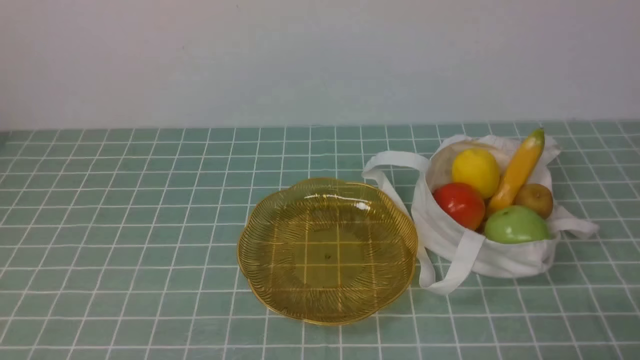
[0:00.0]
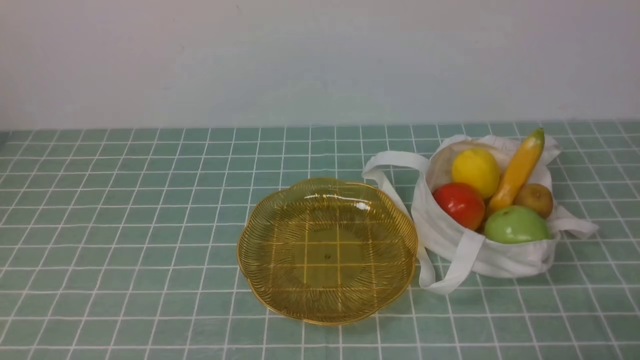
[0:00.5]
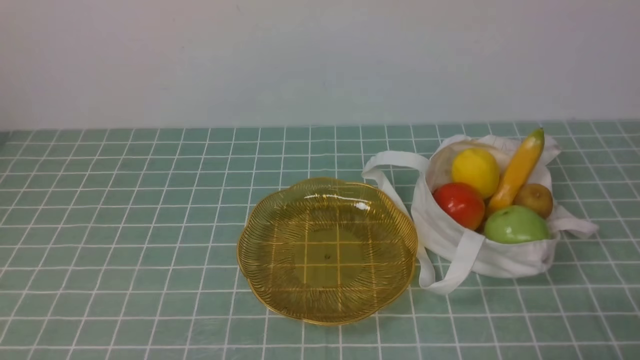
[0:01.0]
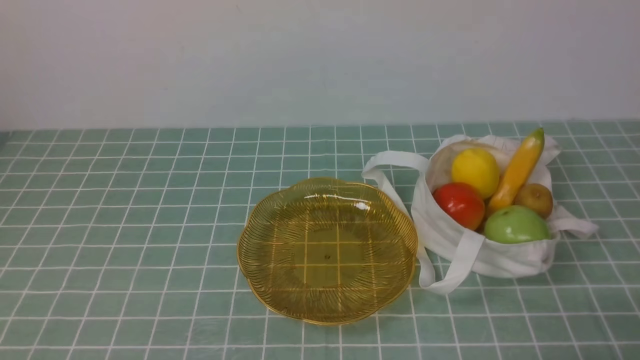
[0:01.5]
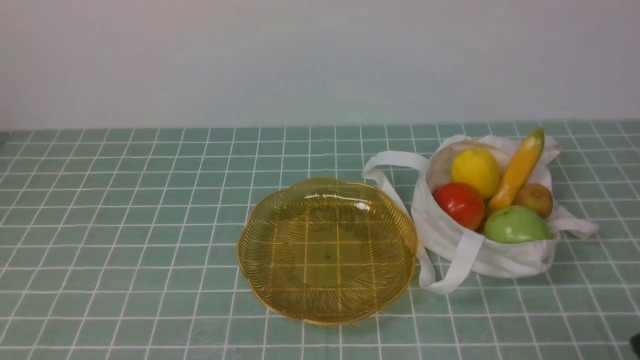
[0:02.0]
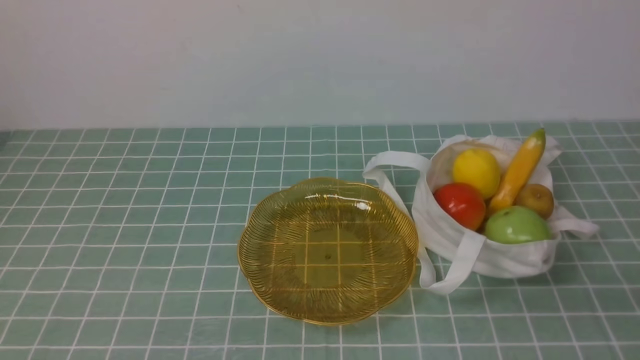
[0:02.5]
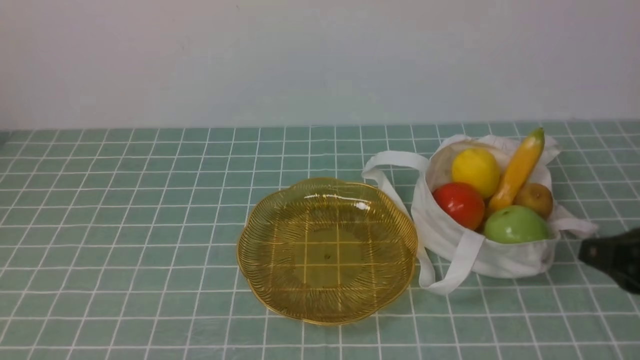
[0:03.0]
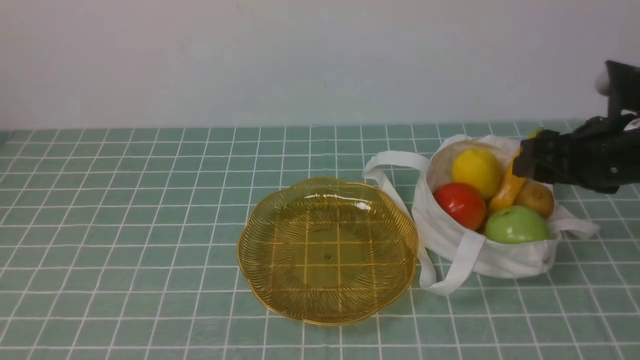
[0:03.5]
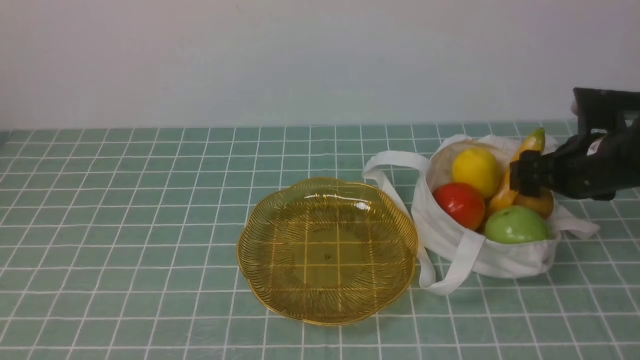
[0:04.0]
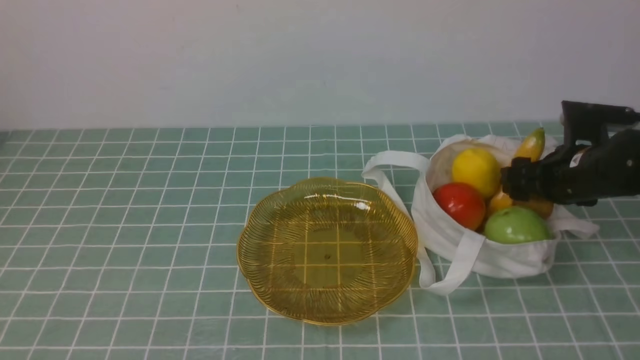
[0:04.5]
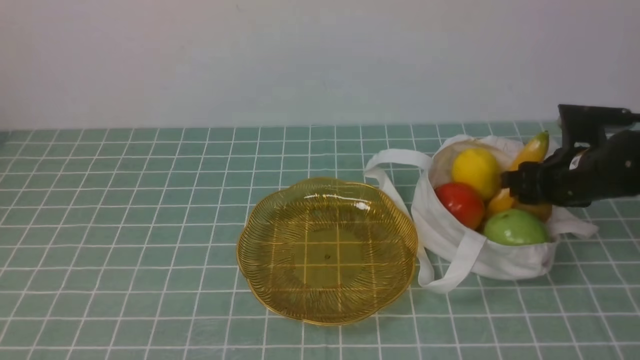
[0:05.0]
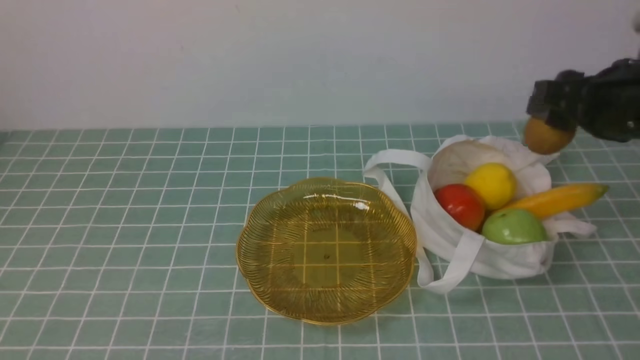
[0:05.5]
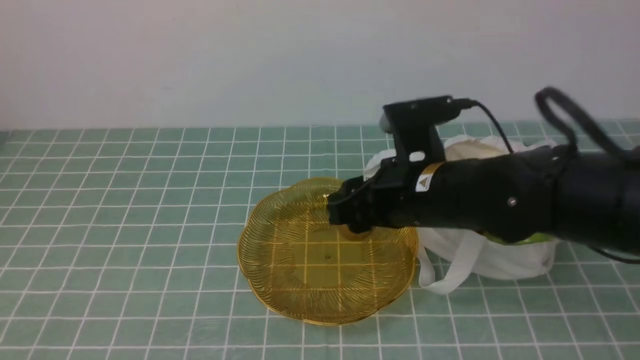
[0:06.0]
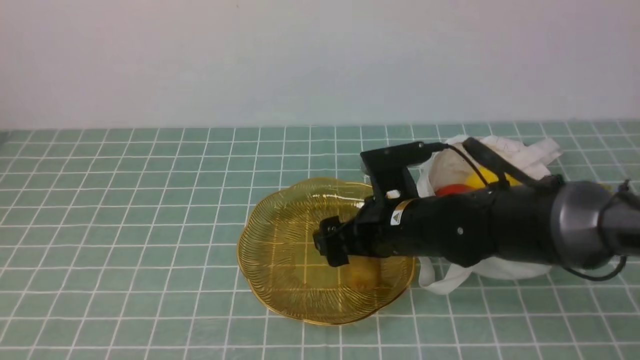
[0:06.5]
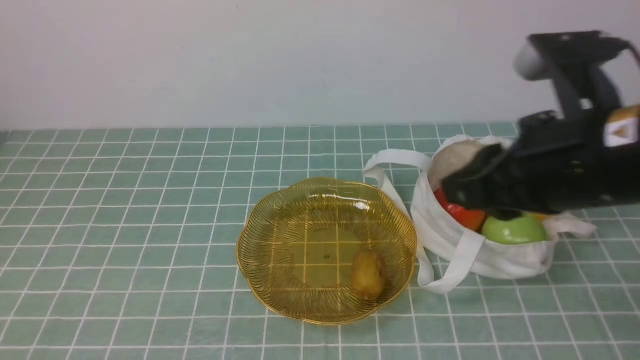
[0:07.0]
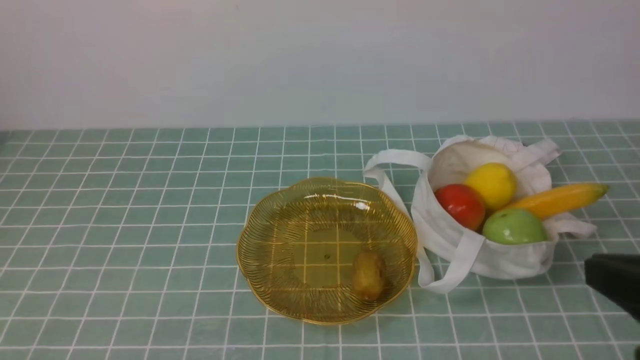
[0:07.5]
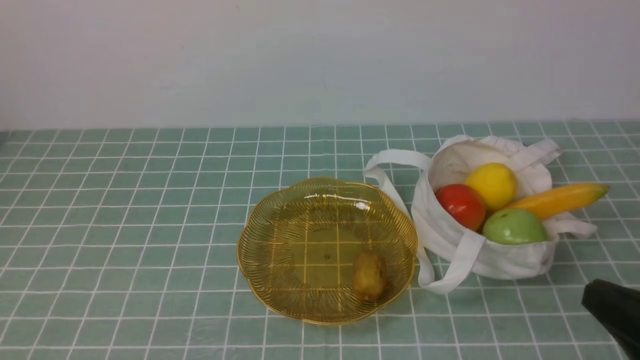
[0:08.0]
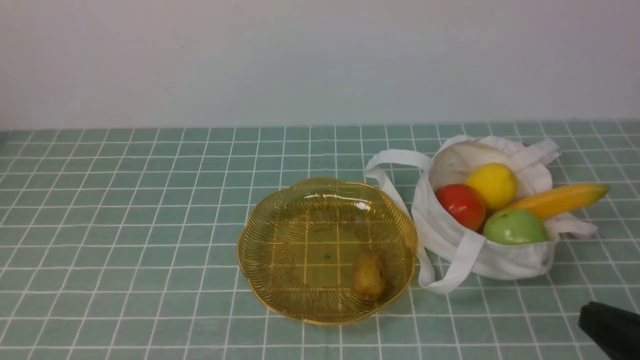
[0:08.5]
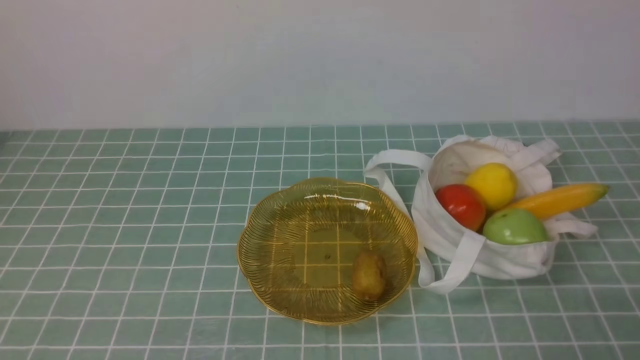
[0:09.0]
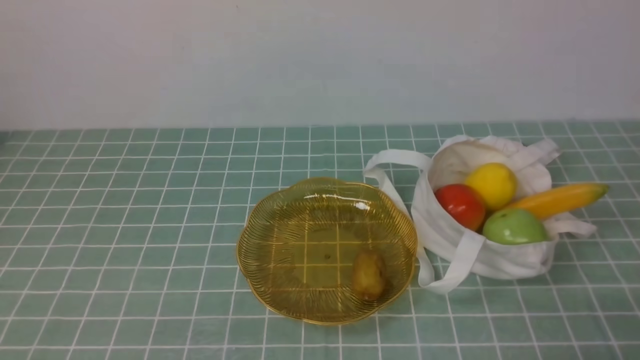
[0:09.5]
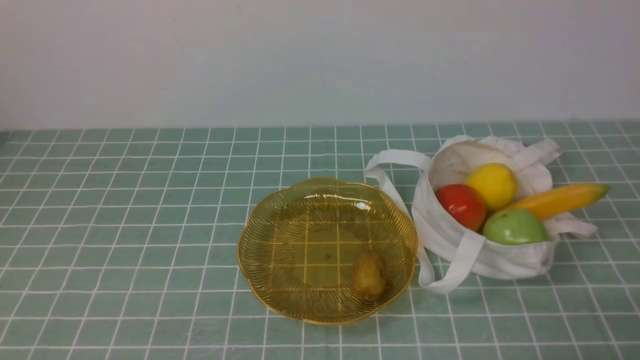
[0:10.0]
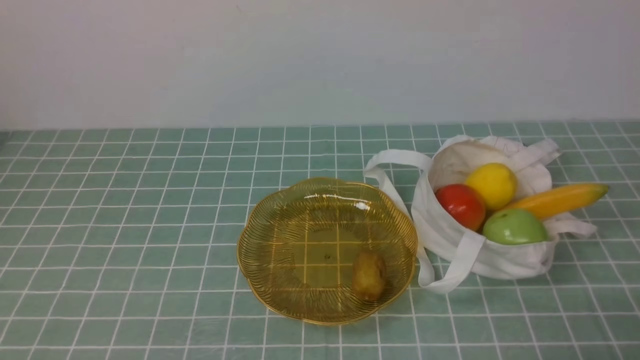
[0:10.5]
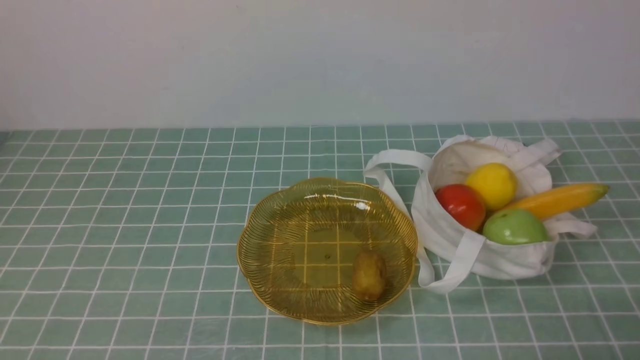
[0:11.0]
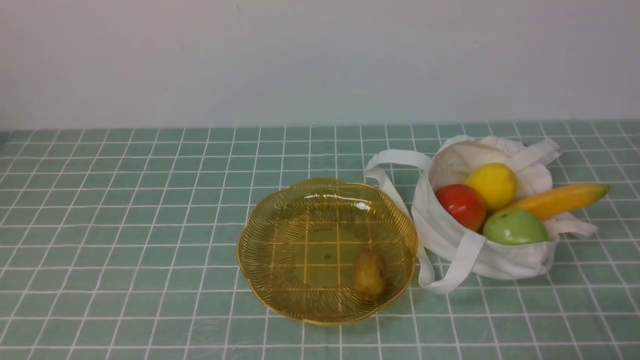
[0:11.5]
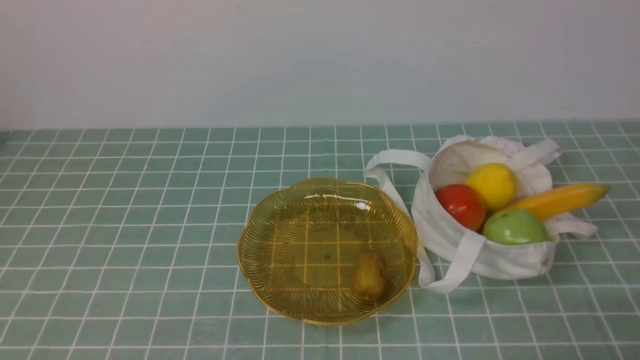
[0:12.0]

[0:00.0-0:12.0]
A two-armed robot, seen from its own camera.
Step, 0:00.0 to 0:05.0: use the right arm to grab a kiwi from the bag.
Step, 0:05.5 to 0:06.5: use the right arm to put the kiwi into the empty plate on the left.
0:02.0 to 0:04.0: The right gripper travels forward by roughly 30 cm, and opens.
0:04.0 to 0:06.0: The right gripper shifts approximately 20 cm to the left.
0:06.0 to 0:08.0: The right gripper travels backward and to the right by roughly 25 cm, and closes up.
0:08.0 to 0:10.0: The right gripper goes some 10 cm downward.
0:10.0 to 0:12.0: Both grippers stay about where they are.

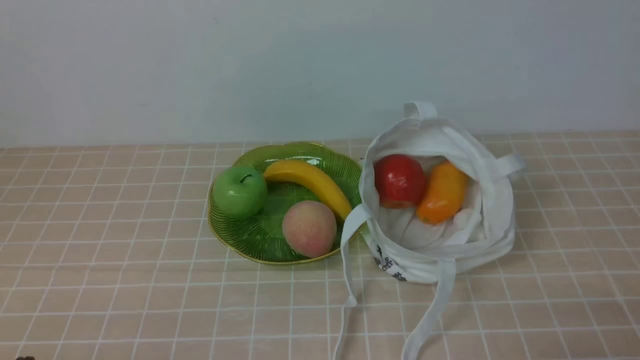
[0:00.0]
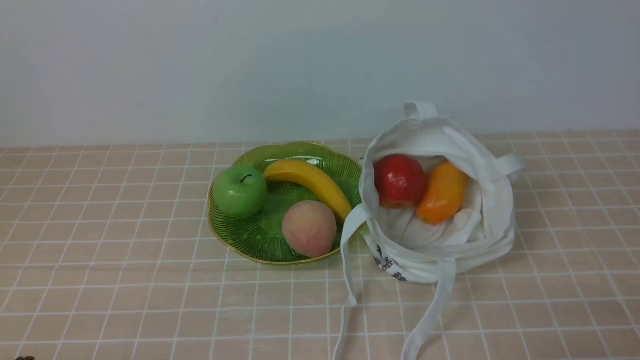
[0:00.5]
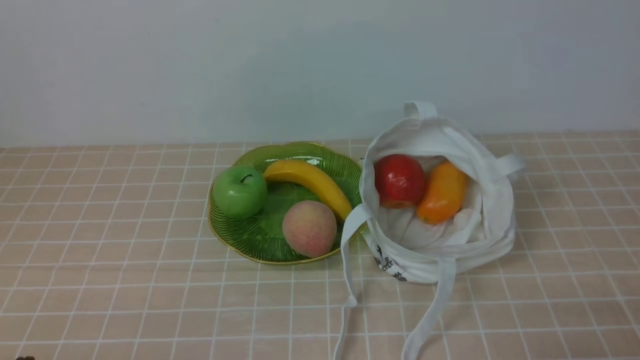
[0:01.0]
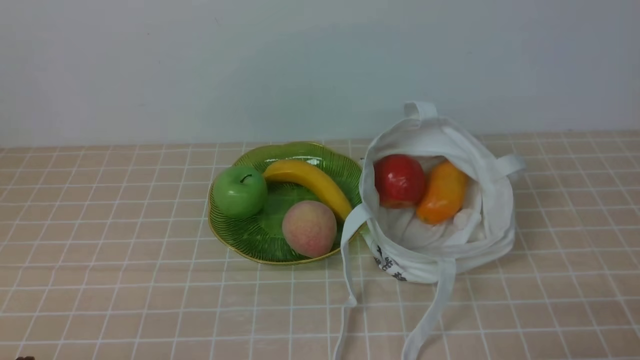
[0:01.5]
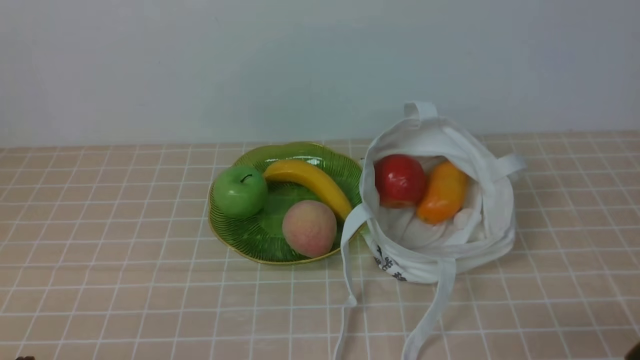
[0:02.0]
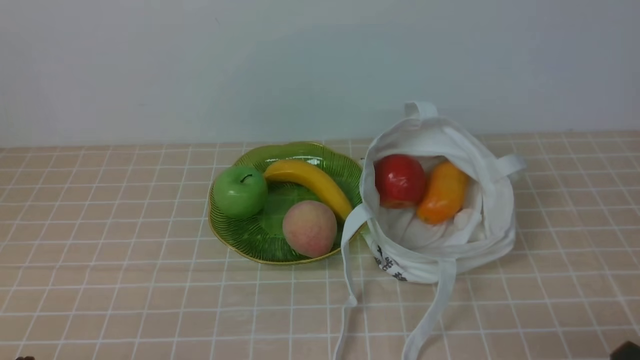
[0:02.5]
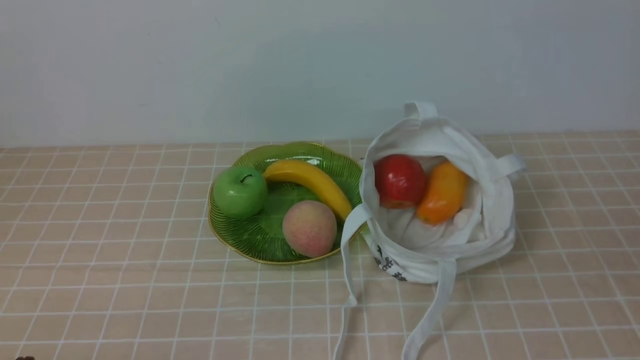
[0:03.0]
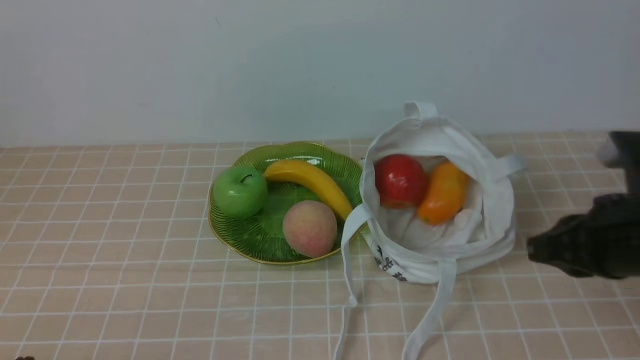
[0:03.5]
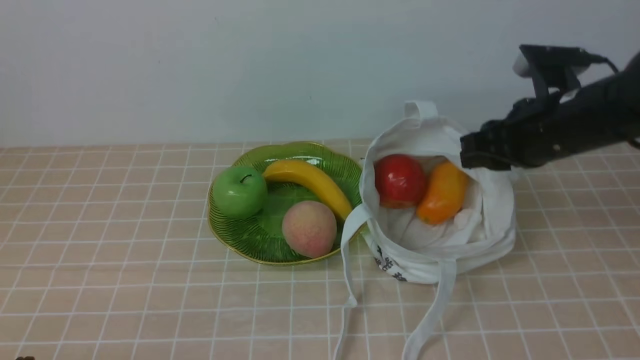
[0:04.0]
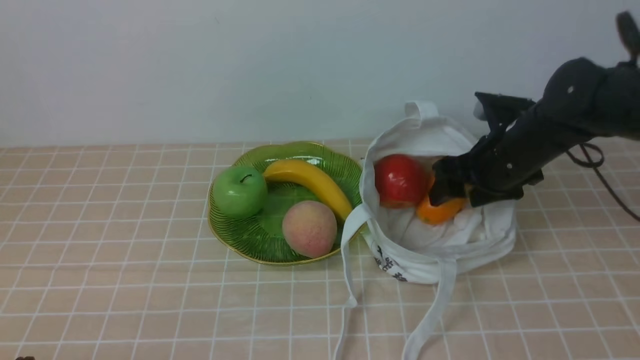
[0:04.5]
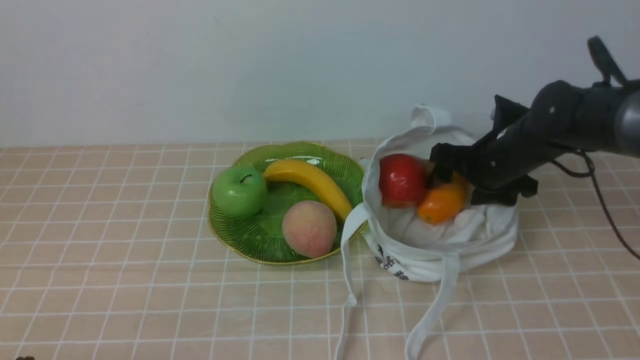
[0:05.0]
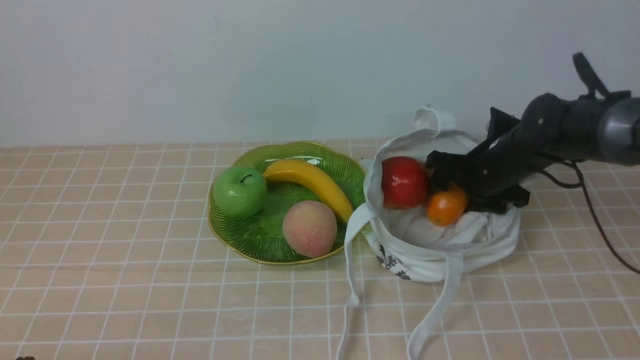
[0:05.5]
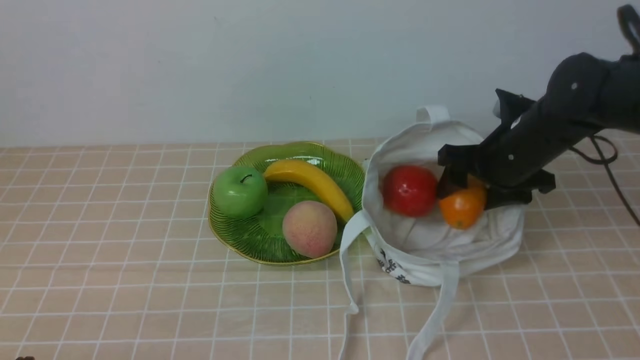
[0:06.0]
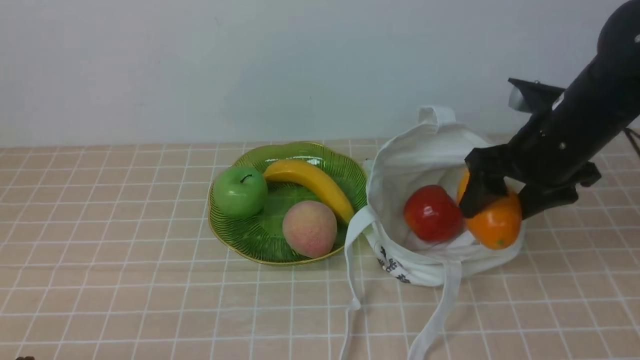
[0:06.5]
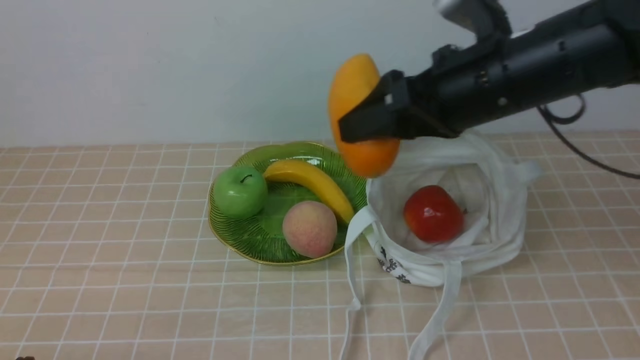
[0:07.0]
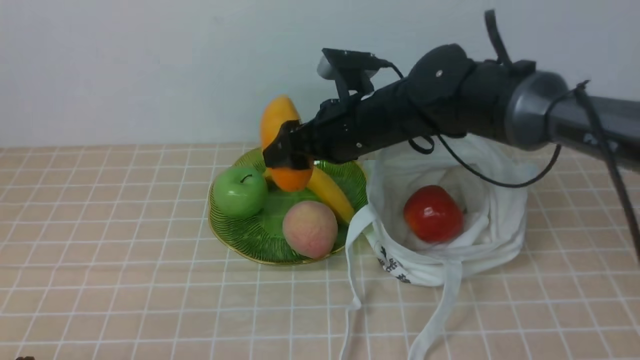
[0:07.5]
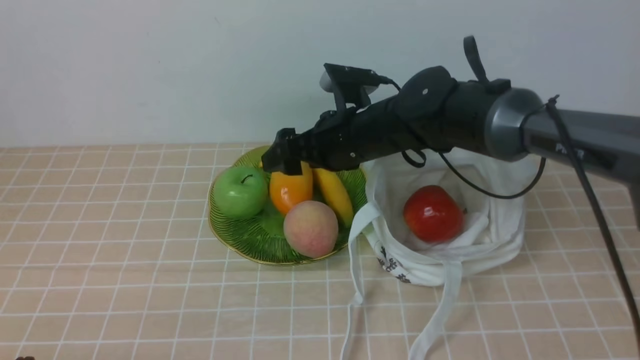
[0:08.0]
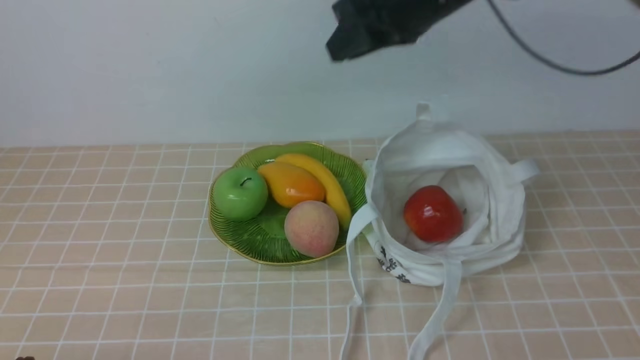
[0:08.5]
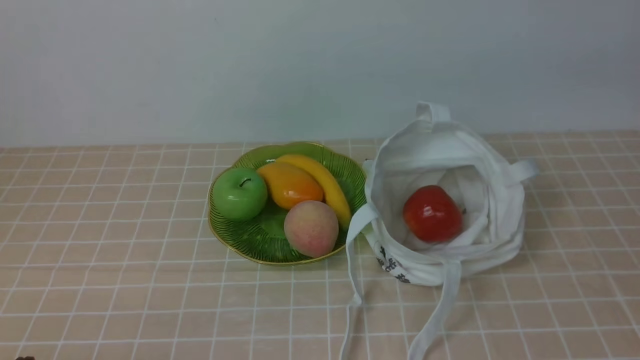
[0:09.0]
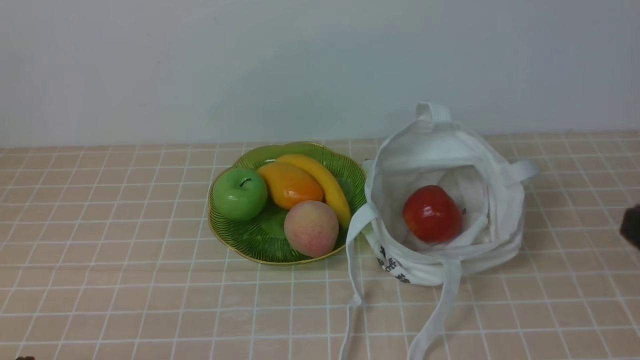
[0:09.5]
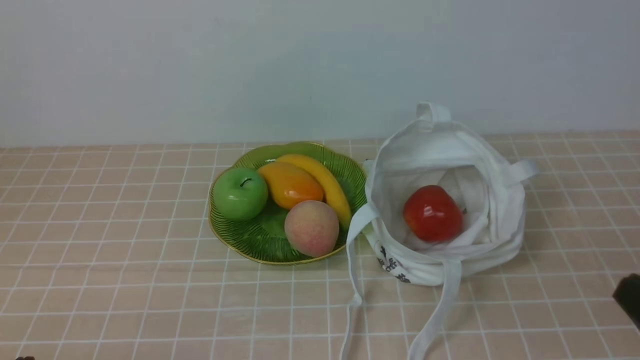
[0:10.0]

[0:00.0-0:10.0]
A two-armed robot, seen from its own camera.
Step, 0:00.0 to 0:05.5: use the right arm to grab a mango from the bag.
Step, 0:06.0 to 0:08.0: use the right arm to put the mango into the empty plate on the left.
0:02.0 to 0:04.0: The right gripper moves forward, roughly 25 cm.
0:04.0 to 0:06.0: The right gripper travels downward and forward by some 10 cm, and opens.
0:06.0 to 0:08.0: The right gripper goes approximately 15 cm to the left.
0:08.0 to 0:10.0: The right gripper shifts about 40 cm backward and to the right, and closes up.
